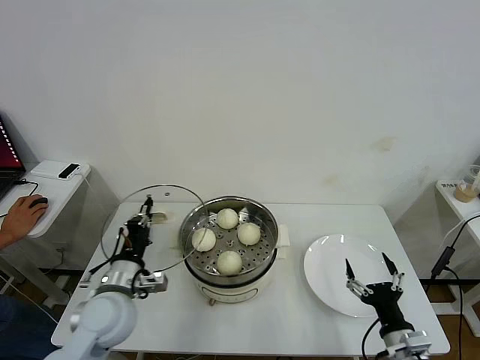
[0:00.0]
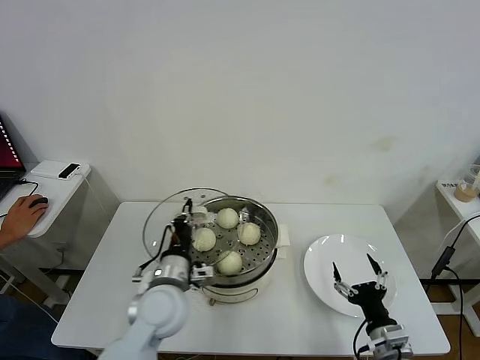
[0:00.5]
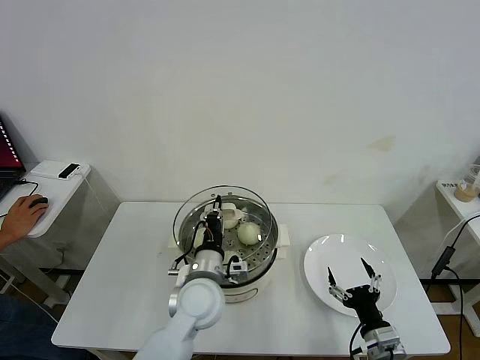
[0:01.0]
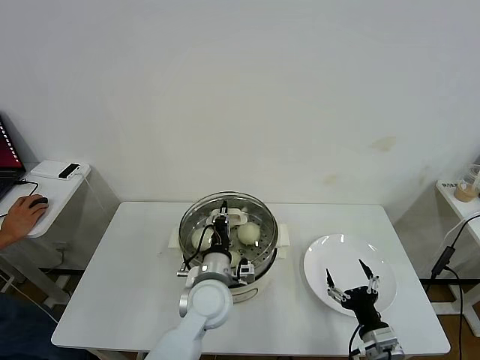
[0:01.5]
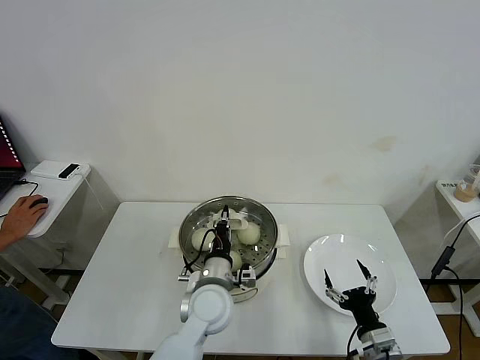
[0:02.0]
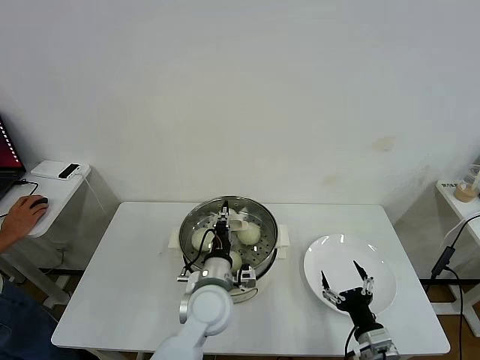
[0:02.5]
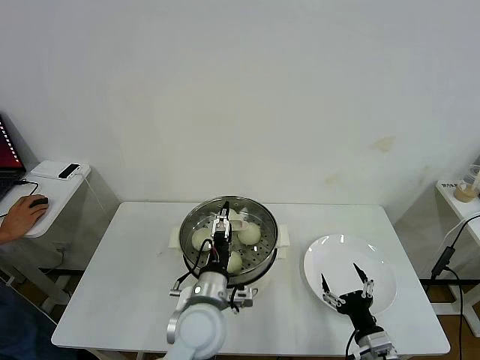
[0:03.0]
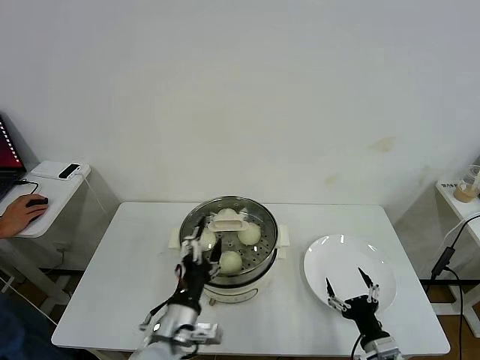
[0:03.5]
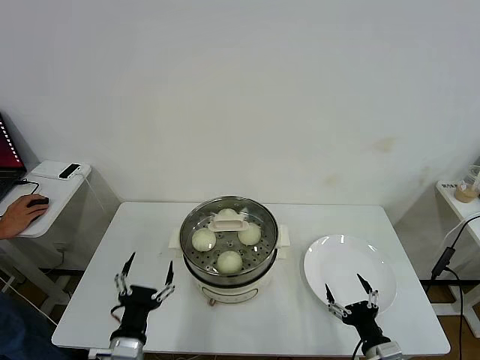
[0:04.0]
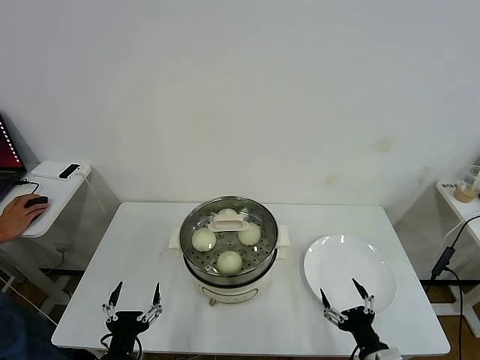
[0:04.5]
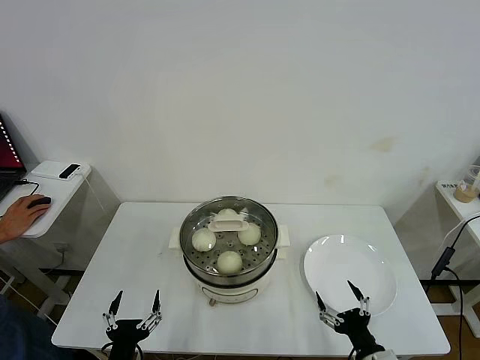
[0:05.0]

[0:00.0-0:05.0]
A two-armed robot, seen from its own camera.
Task of the whole recording: take steamed baozi put them in steamer then cover it.
Step, 0:00.0 to 0:02.0: Place the pot lid on the steamer with left gripper.
0:00.0 to 0:02.5: The left gripper goes approximately 20 cm to the right; the right gripper shifts by roughly 5 cm.
0:02.5 to 0:05.0: The left gripper travels backward and to the left by some 25 cm, and opens.
